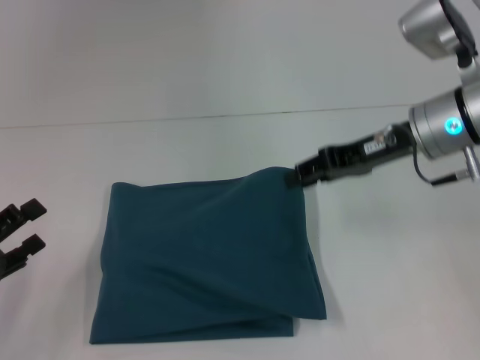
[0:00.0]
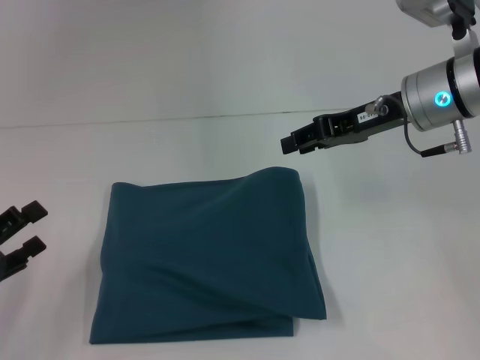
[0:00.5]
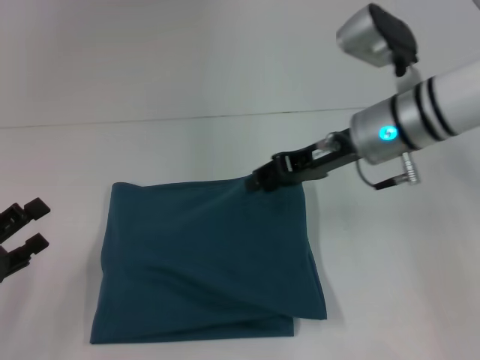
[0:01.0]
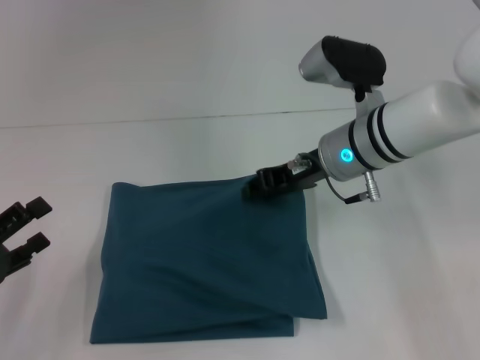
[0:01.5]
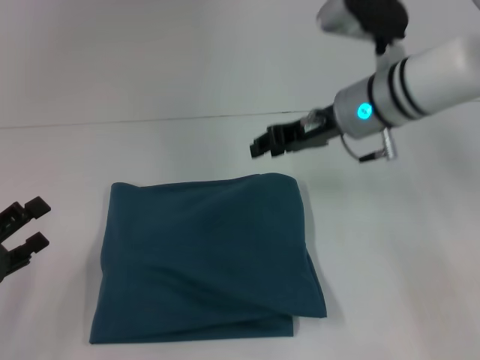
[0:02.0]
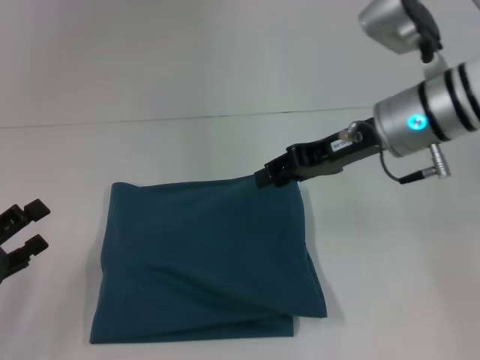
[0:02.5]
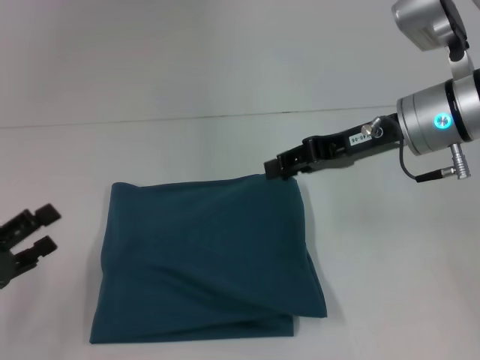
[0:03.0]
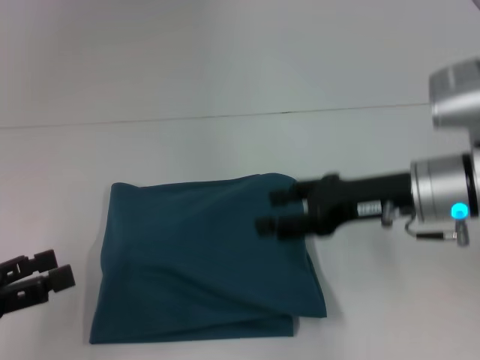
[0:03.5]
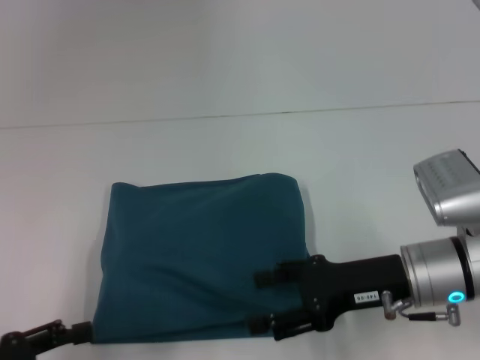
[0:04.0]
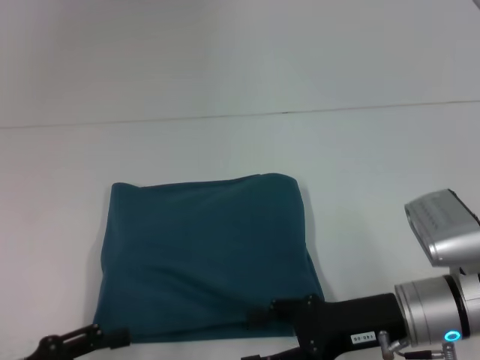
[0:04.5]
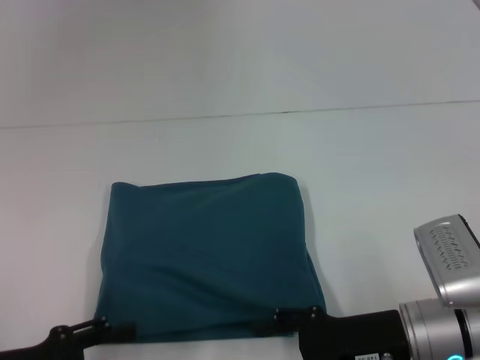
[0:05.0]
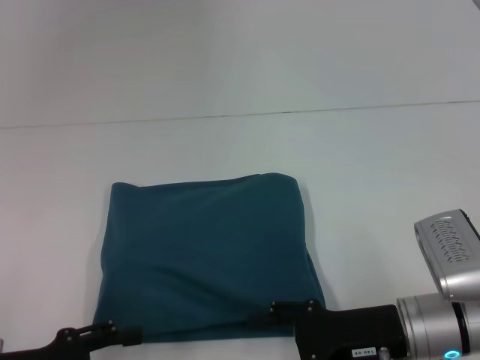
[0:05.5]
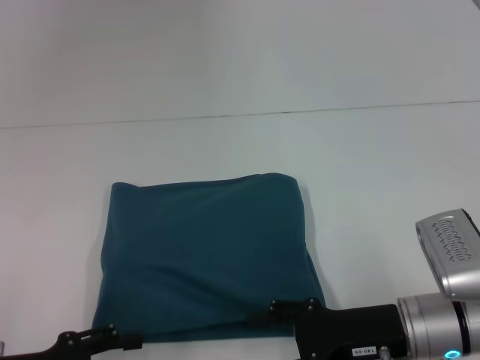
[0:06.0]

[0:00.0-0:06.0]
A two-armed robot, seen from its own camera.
0:00.0 to 0:02.0: The right gripper heads to the left, covering roughly 5 cm.
0:02.0 to 0:04.0: The right gripper heads backward and downward, covering roughly 15 cm, and opens its fingers, while the left gripper heads backward, covering about 5 cm.
0:04.0 to 0:06.0: The right gripper changes place by some 5 cm.

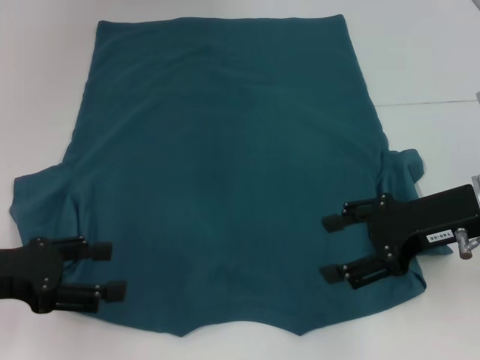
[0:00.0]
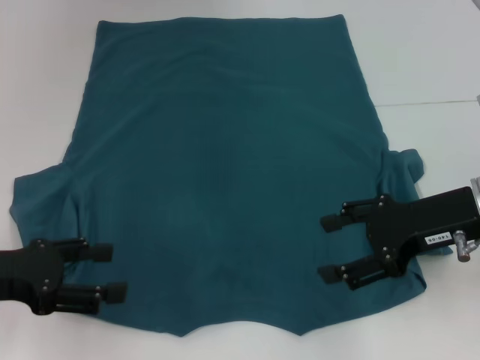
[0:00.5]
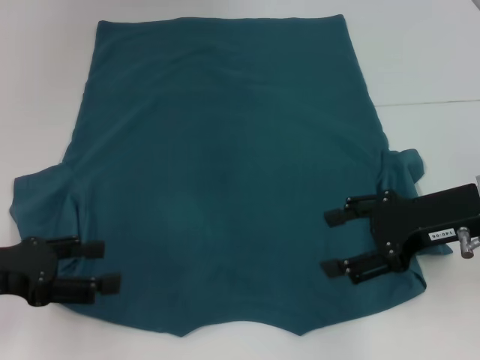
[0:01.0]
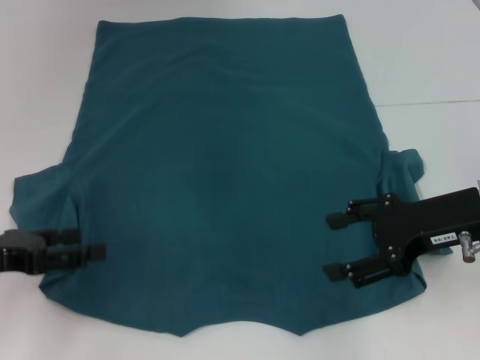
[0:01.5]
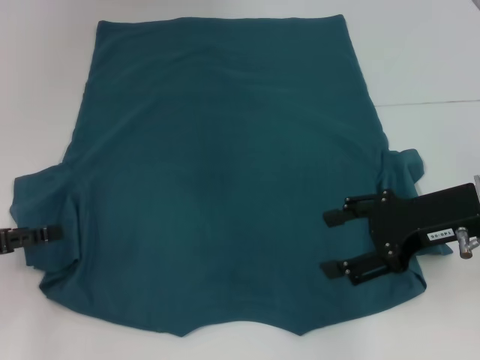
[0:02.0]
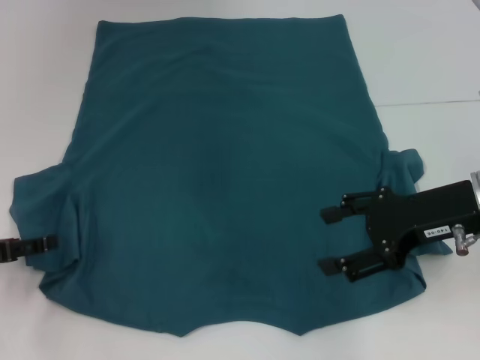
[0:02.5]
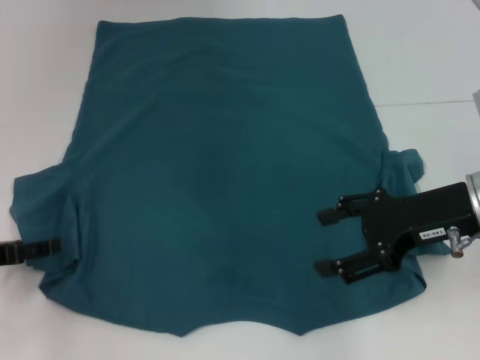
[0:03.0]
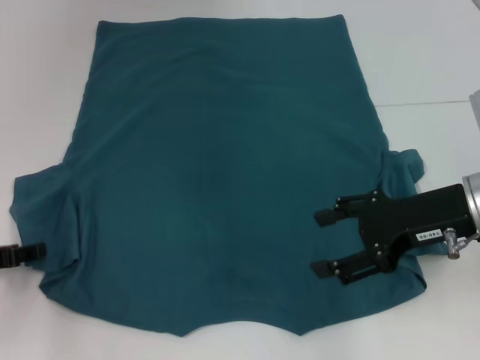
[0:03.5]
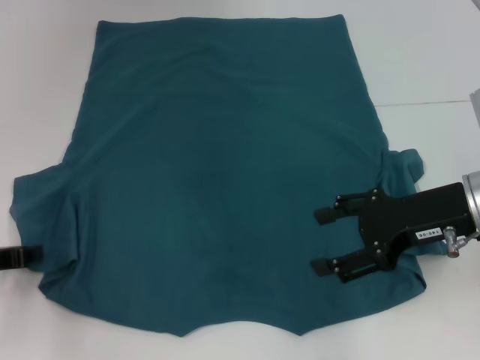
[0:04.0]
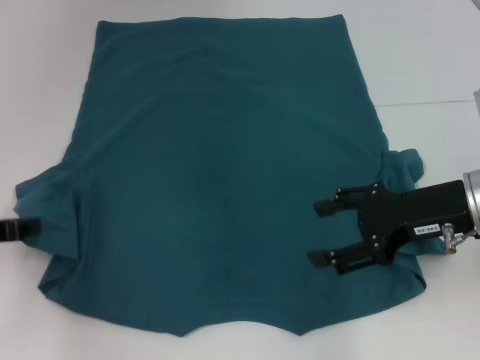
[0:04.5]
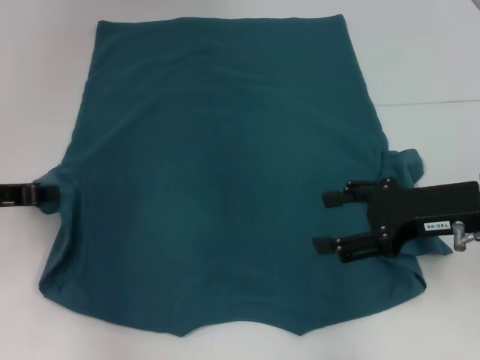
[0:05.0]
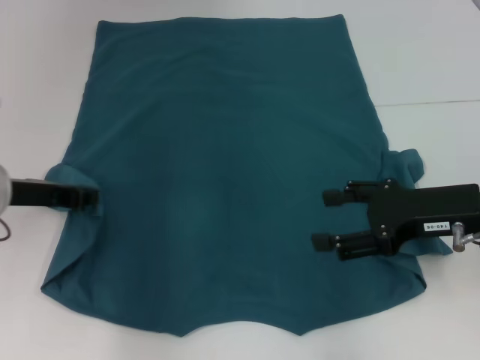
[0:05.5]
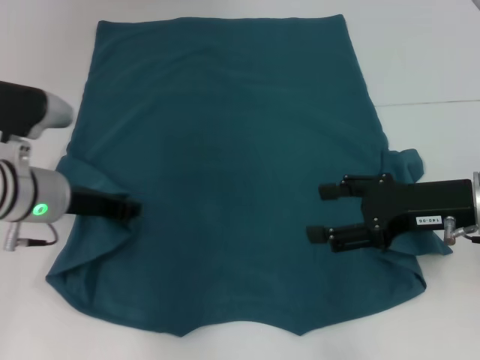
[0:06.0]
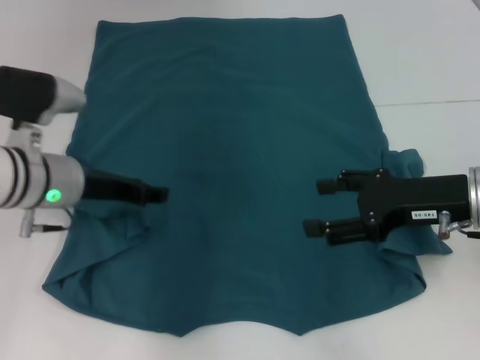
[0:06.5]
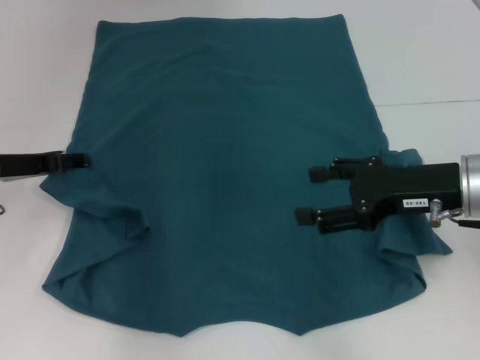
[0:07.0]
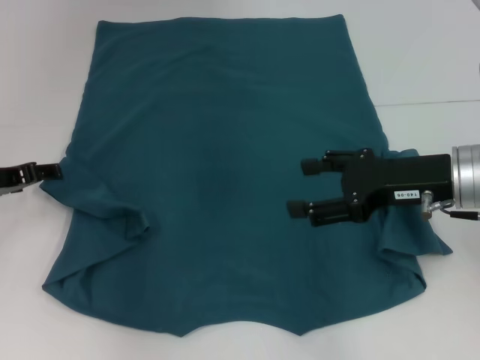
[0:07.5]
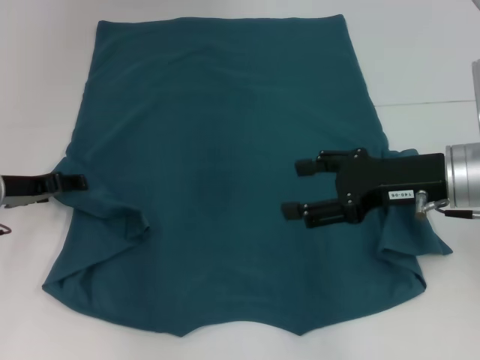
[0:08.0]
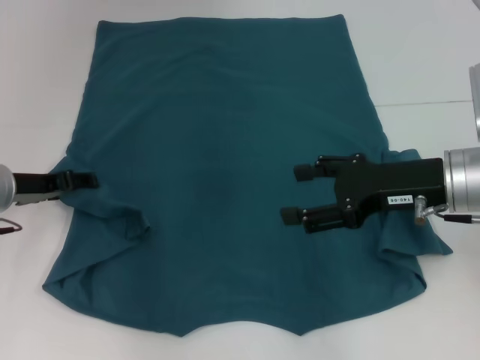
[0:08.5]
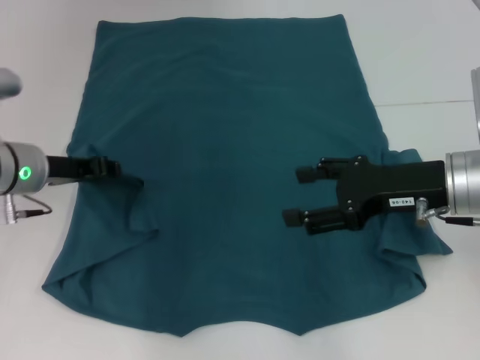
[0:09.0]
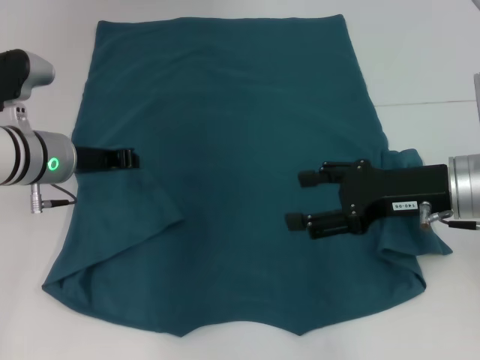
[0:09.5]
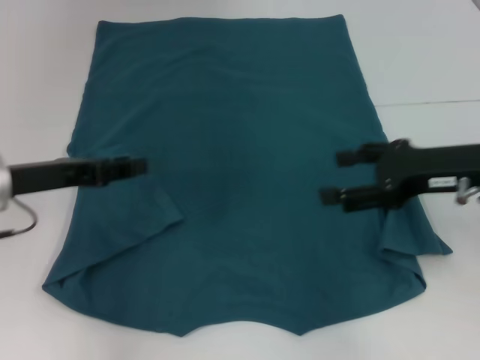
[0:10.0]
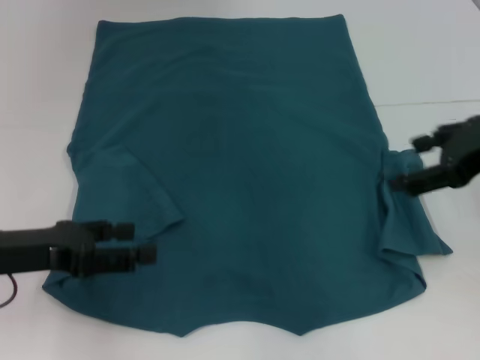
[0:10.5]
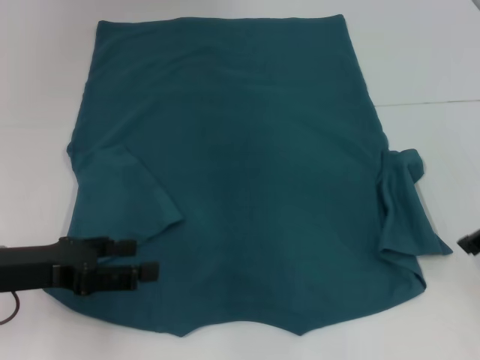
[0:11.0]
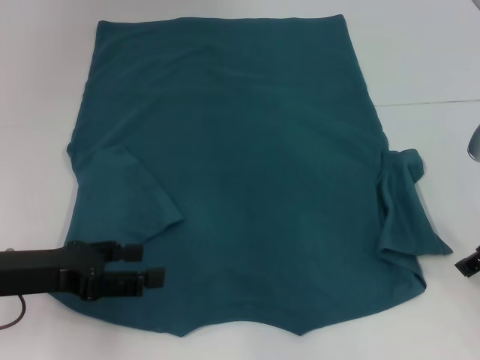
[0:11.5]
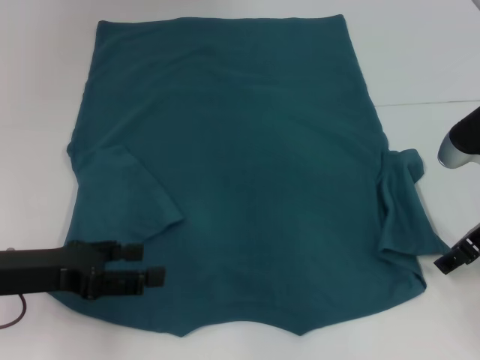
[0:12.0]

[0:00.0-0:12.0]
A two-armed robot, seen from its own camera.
Step, 0:00.0 to 0:09.0: Fold the bottom left sleeve with your left hand.
0:02.0 to 0:04.0: The left gripper closes up.
0:04.0 to 0:06.0: The left gripper moves to the right and forward, roughly 15 cm, and closes.
0:06.0 to 0:08.0: The left gripper goes approximately 5 cm to the left, and opens its fingers.
0:08.0 to 0:10.0: The left gripper changes place by some 5 cm, and closes.
0:10.0 to 0:12.0: The left gripper goes approximately 5 cm backward, and opens its fingers, while the right gripper goes upward and returns, about 5 cm each way.

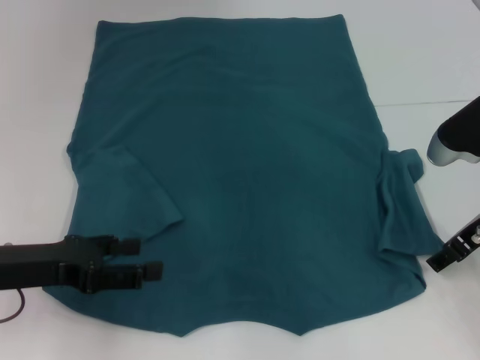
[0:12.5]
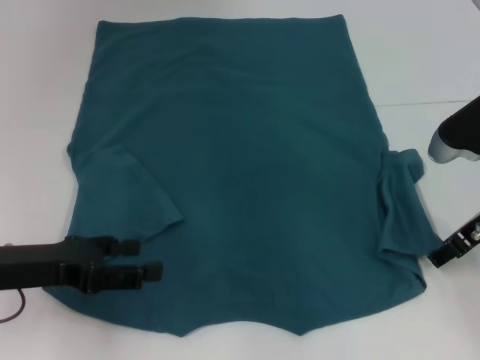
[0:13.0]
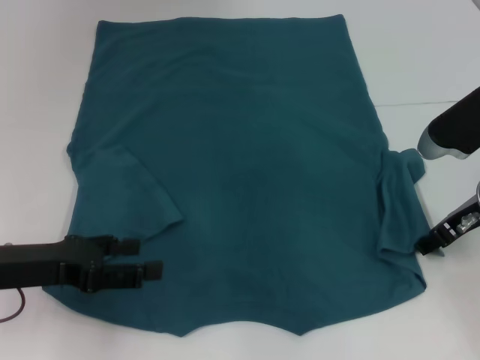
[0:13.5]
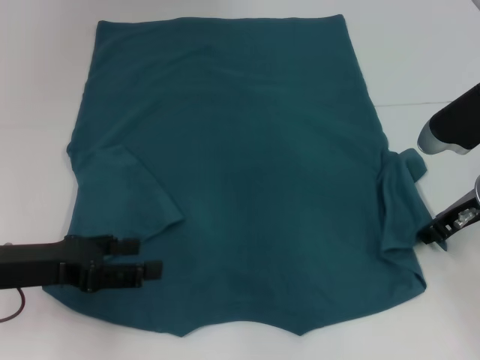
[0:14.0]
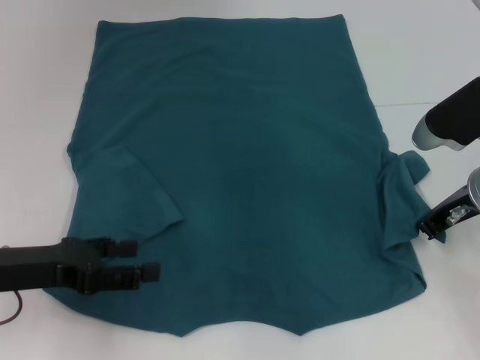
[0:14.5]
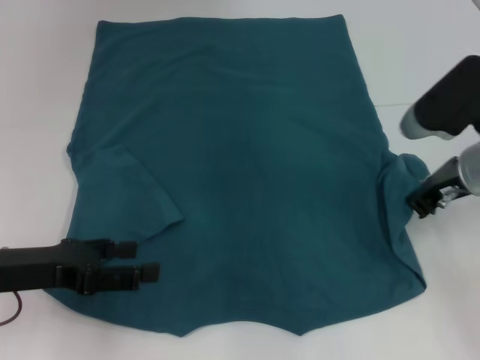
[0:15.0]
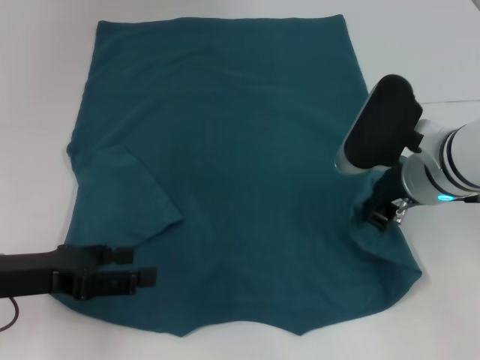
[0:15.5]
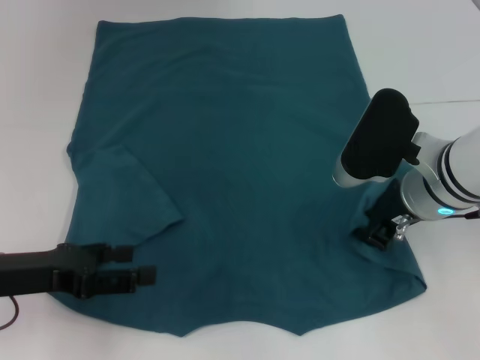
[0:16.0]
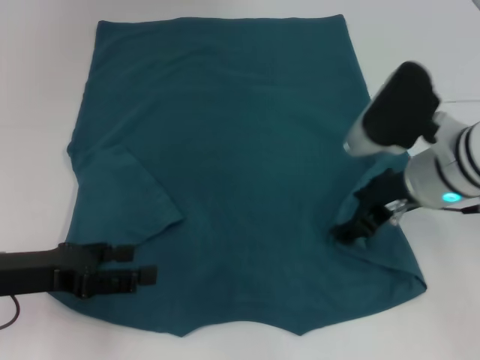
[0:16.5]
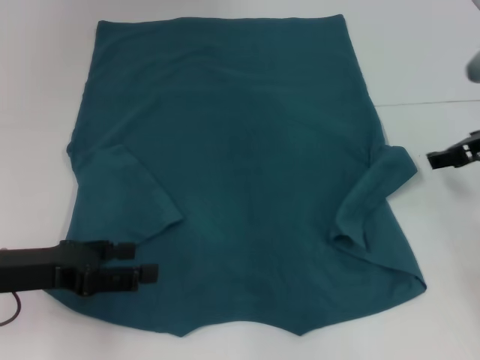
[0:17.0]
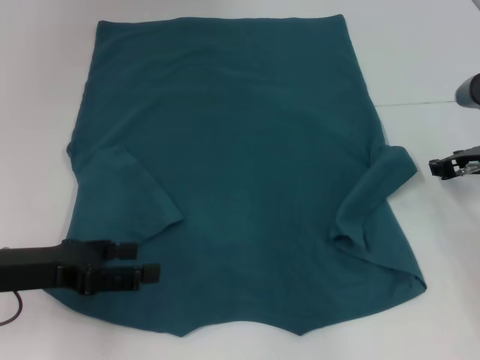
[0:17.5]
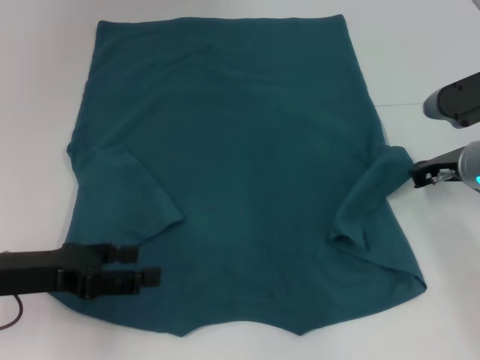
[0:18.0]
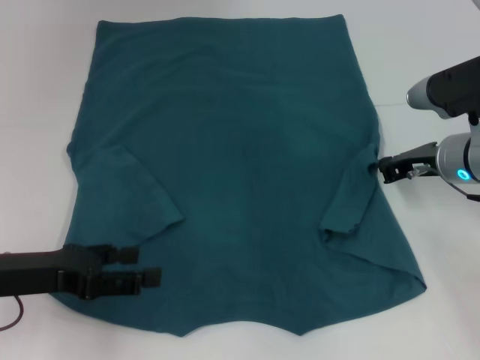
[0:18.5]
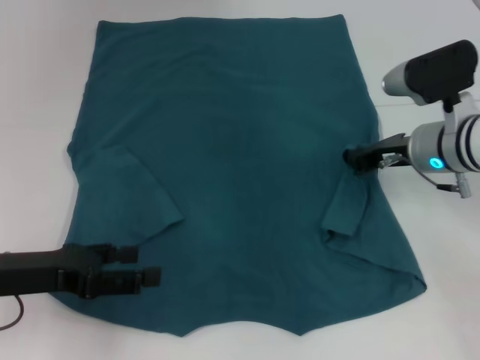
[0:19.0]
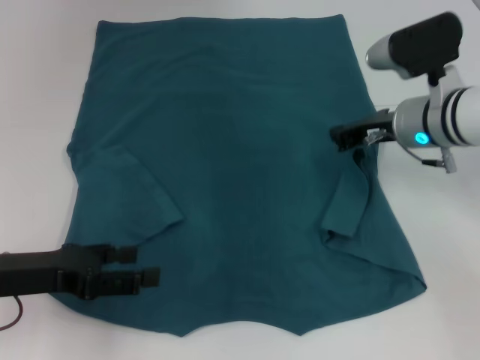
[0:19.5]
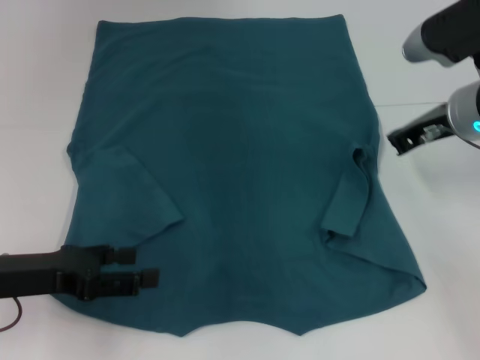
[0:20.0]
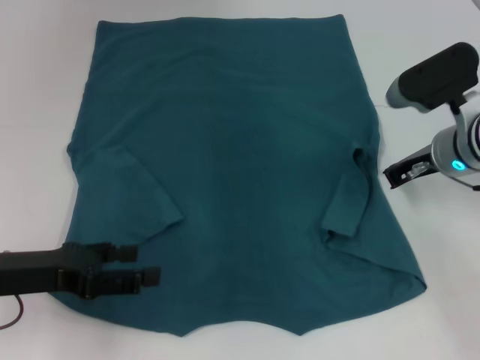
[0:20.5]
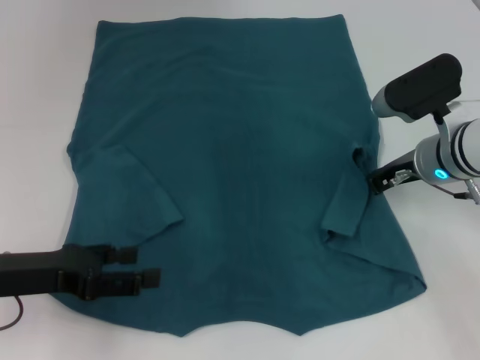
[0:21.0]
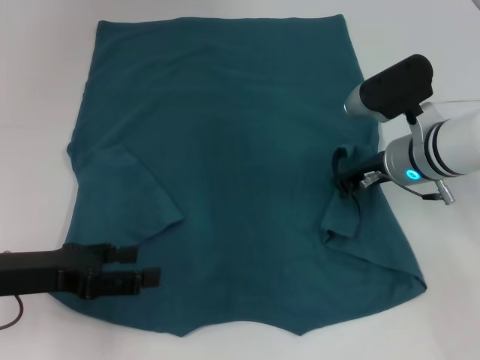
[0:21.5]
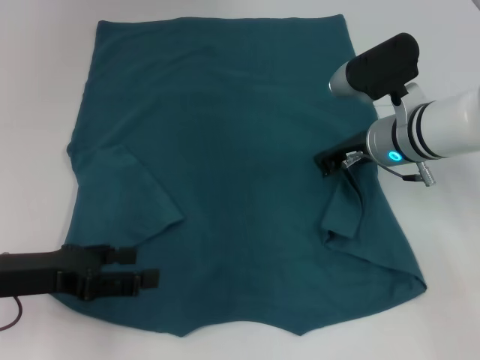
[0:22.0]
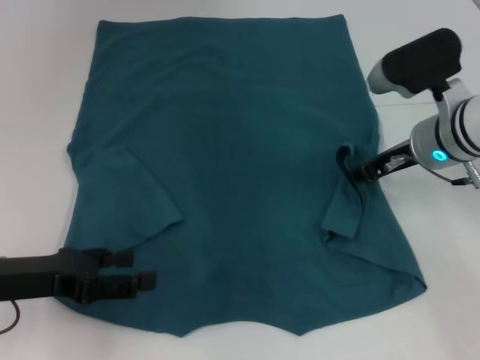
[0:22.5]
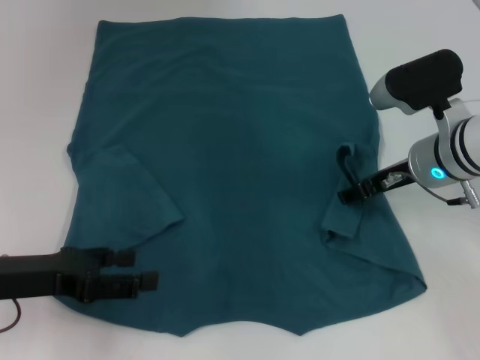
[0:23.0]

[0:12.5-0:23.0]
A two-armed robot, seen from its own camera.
0:12.5 to 0:14.5: The right gripper closes up.
0:14.5 to 0:16.5: The right gripper shifts about 5 cm to the left, and opens up.
0:16.5 to 0:19.0: The right gripper travels forward by approximately 5 cm, moves some 10 cm to the right and comes back, and closes.
0:21.0 to 0:23.0: The right gripper opens.
